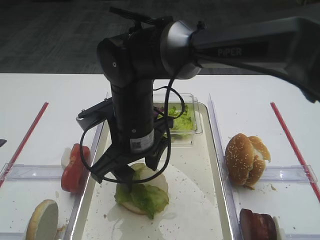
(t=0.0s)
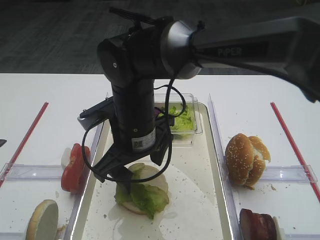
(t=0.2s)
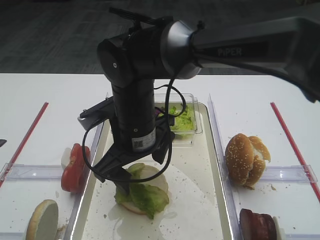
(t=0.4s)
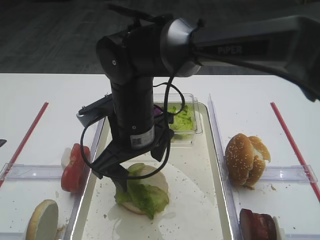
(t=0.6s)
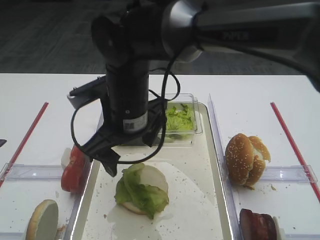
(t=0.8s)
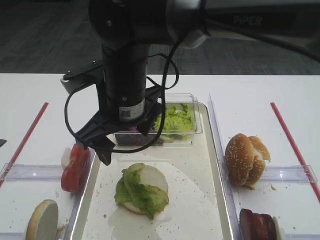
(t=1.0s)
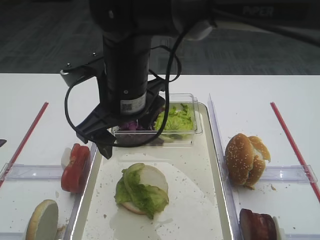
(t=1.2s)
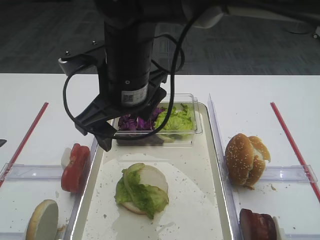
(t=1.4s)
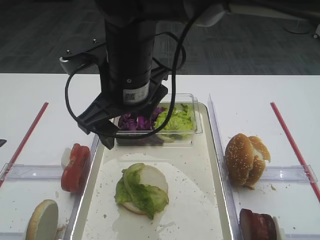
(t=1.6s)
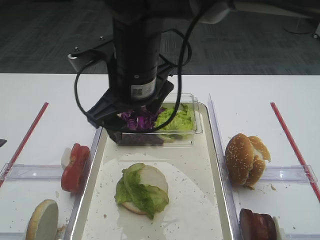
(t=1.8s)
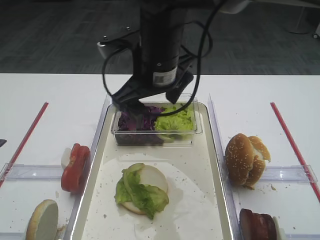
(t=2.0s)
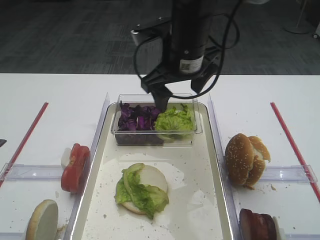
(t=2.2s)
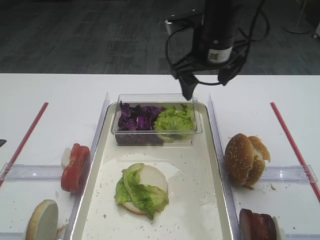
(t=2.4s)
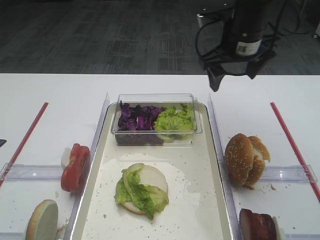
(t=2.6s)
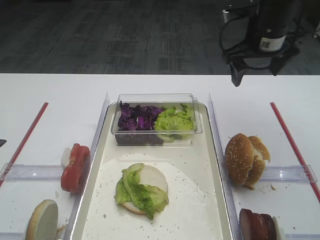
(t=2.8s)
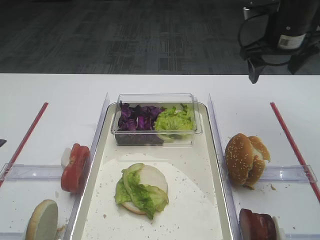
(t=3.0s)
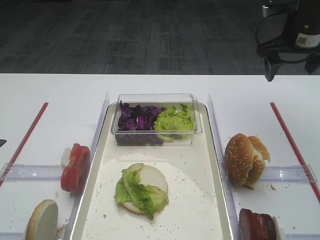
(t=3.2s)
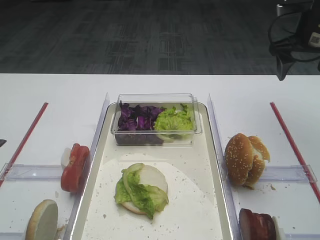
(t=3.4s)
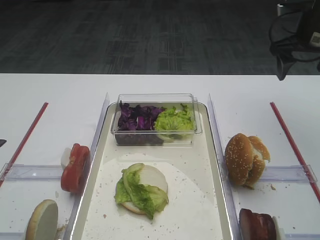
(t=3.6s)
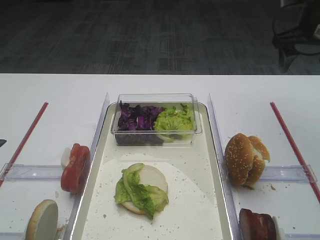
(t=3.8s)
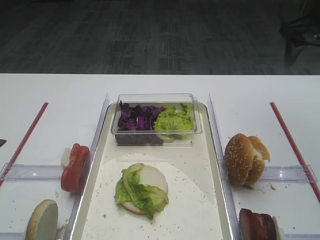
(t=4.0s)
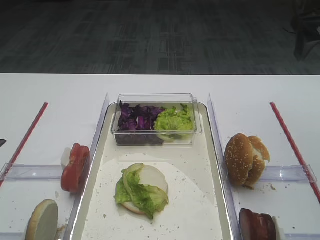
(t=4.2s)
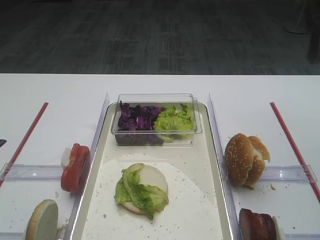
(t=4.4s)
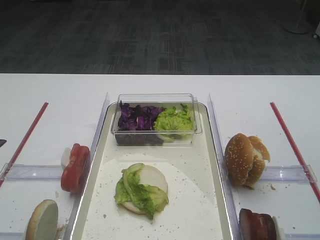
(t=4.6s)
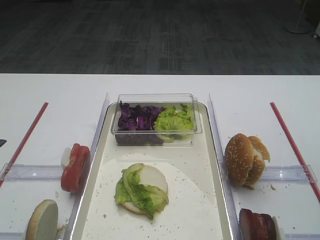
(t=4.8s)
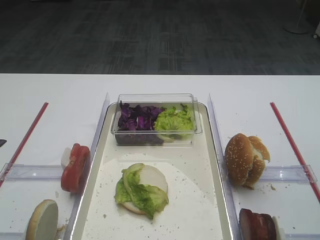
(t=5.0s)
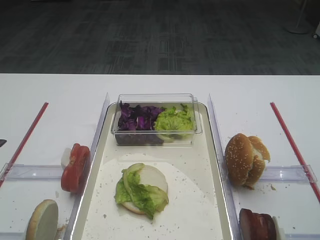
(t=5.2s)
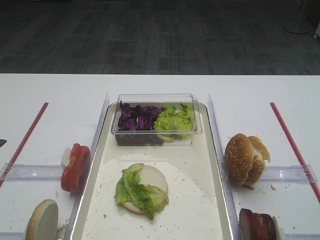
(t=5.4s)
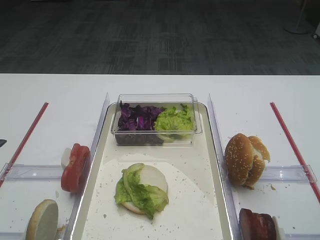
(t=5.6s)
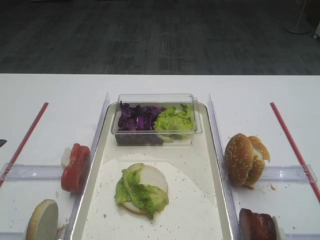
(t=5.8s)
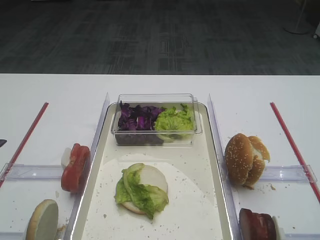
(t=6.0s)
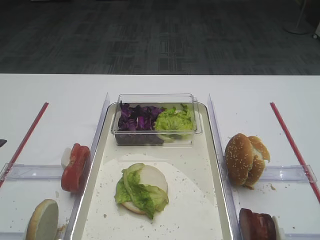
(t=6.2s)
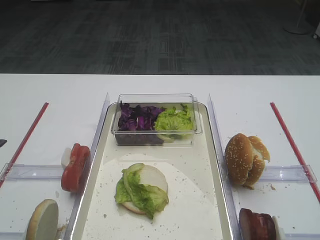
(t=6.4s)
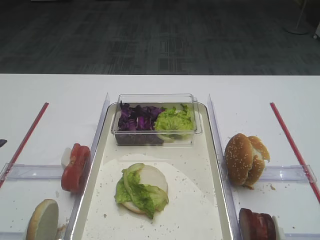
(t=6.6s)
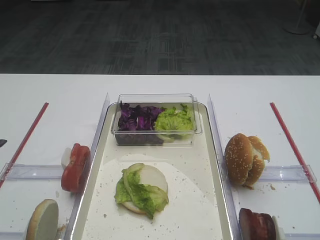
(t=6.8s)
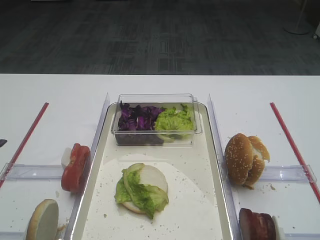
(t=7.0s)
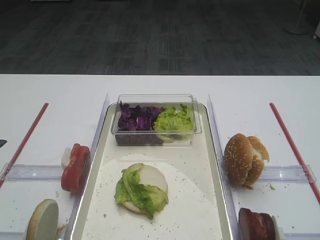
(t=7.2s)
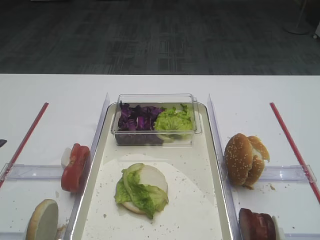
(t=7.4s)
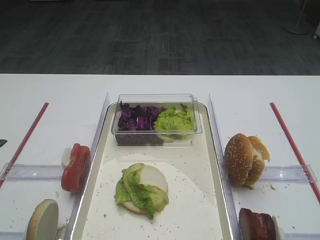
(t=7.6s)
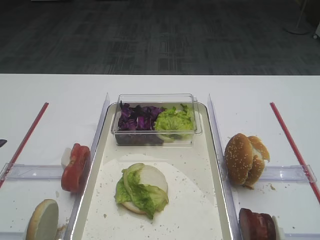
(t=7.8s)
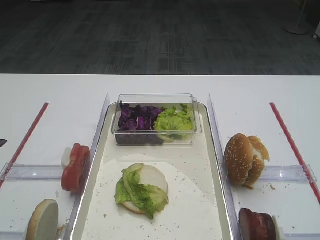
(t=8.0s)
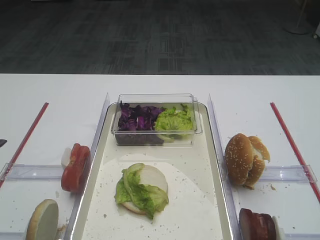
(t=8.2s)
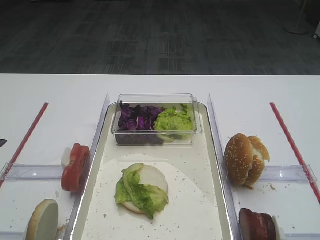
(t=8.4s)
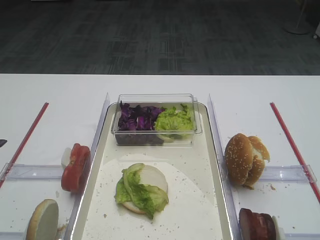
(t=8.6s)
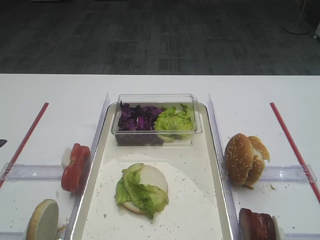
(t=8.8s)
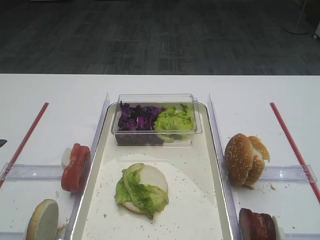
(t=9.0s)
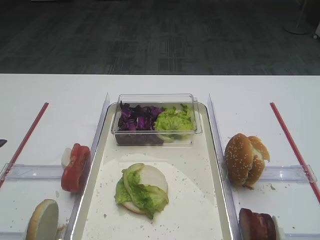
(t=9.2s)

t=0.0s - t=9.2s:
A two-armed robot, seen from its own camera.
t=0.0s - t=1.6s: The right gripper travels upward by some 10 cm.
t=1.6s - t=3.0s: The right gripper travels to the right and forward by about 30 cm.
t=3.0s - t=4.6s: The right gripper shifts approximately 15 cm backward, upward and to the right.
t=7.6s - t=9.2s: Neither gripper changes place.

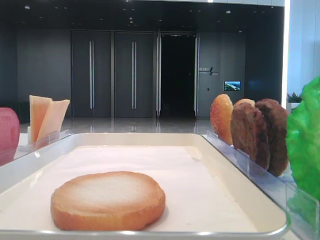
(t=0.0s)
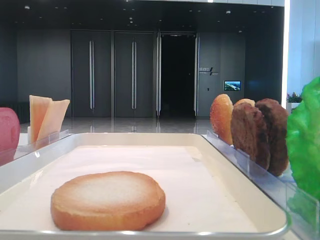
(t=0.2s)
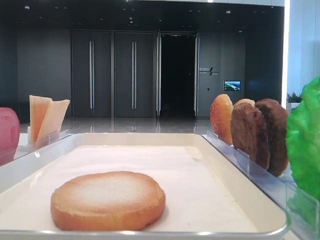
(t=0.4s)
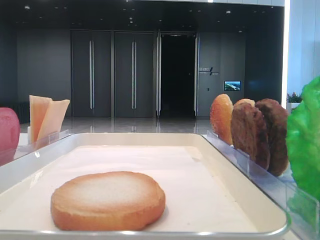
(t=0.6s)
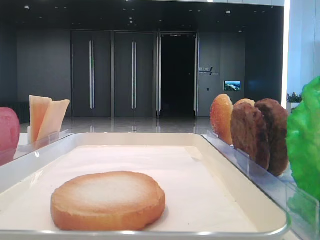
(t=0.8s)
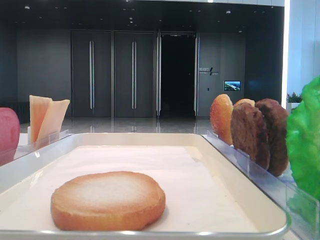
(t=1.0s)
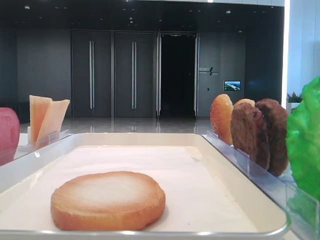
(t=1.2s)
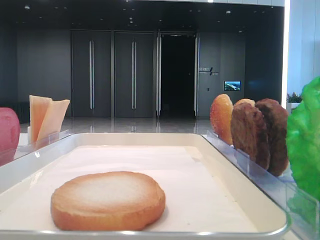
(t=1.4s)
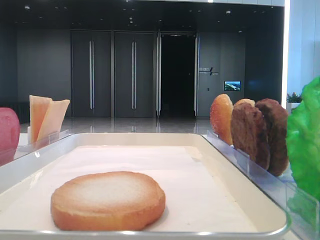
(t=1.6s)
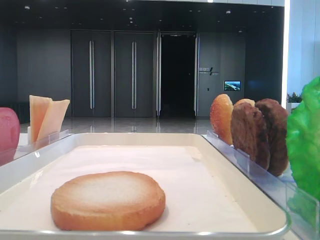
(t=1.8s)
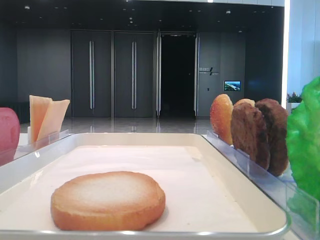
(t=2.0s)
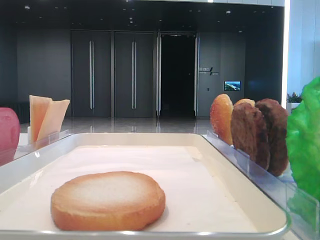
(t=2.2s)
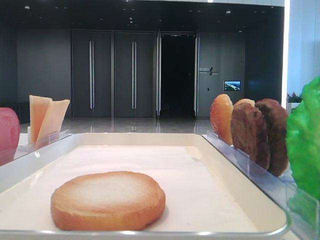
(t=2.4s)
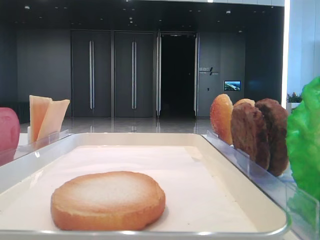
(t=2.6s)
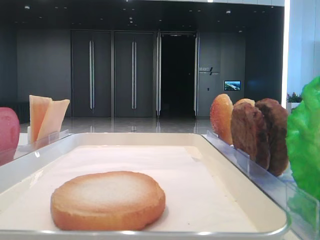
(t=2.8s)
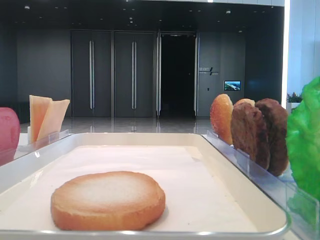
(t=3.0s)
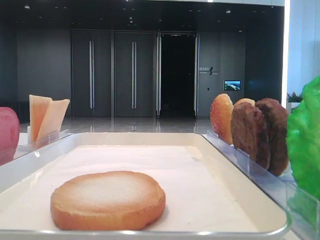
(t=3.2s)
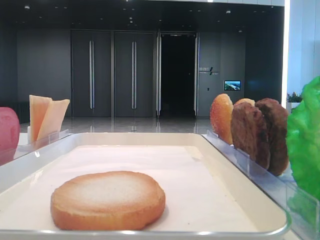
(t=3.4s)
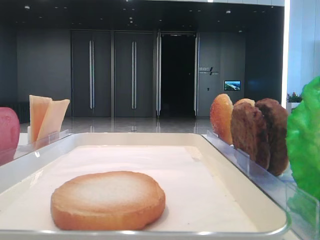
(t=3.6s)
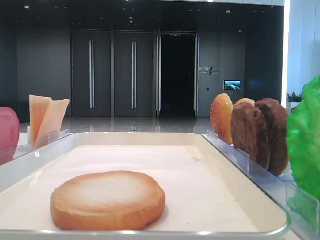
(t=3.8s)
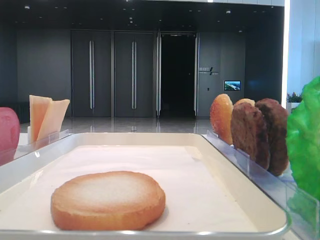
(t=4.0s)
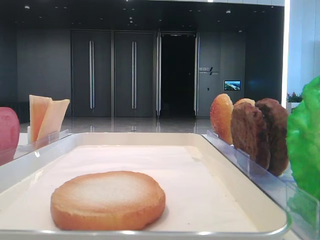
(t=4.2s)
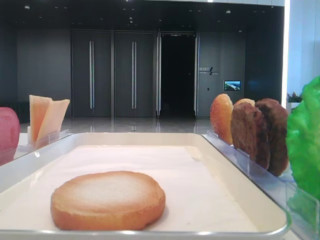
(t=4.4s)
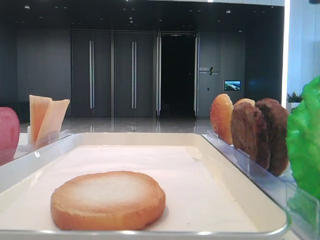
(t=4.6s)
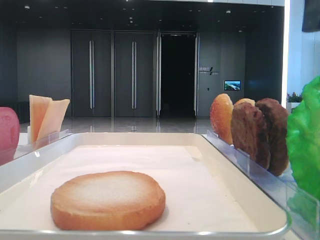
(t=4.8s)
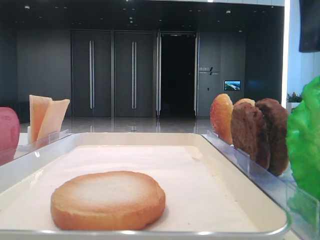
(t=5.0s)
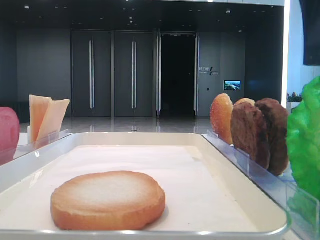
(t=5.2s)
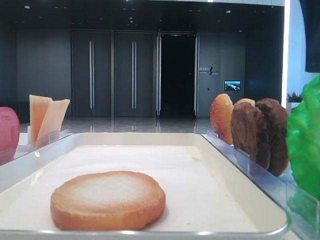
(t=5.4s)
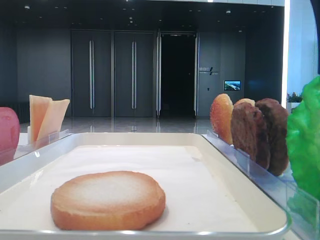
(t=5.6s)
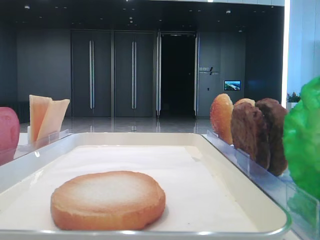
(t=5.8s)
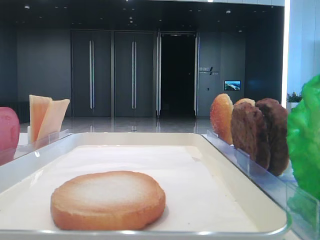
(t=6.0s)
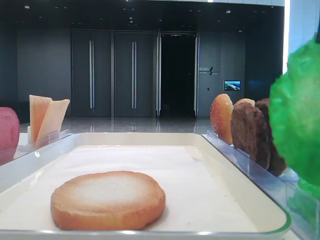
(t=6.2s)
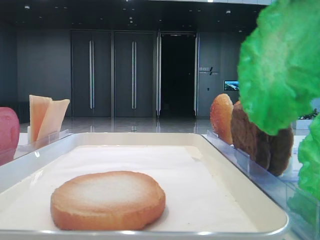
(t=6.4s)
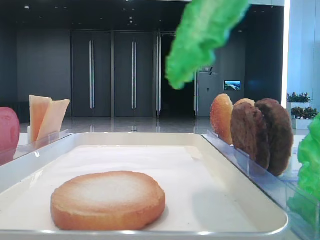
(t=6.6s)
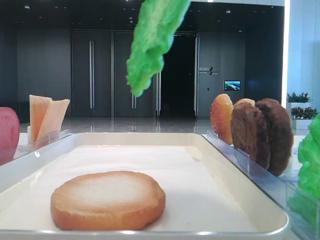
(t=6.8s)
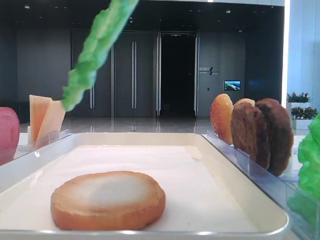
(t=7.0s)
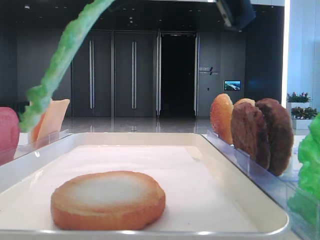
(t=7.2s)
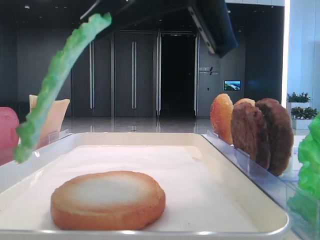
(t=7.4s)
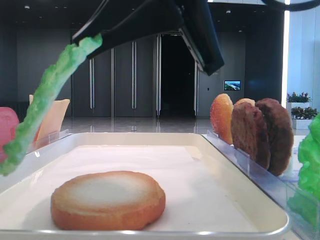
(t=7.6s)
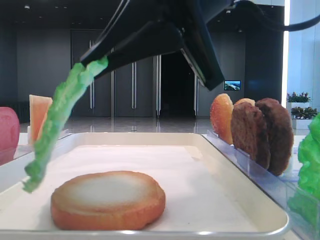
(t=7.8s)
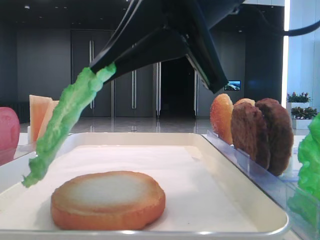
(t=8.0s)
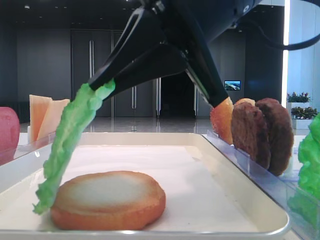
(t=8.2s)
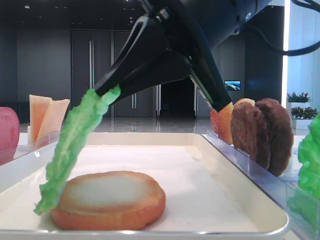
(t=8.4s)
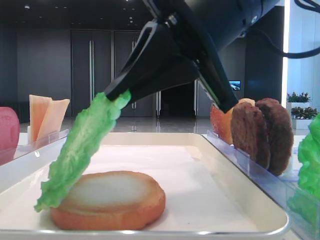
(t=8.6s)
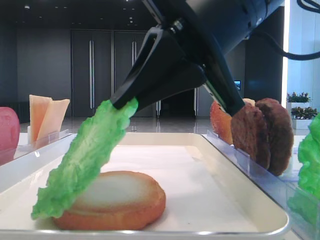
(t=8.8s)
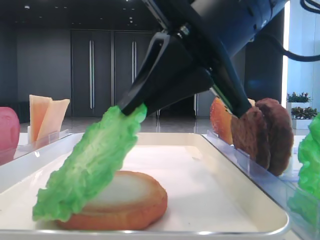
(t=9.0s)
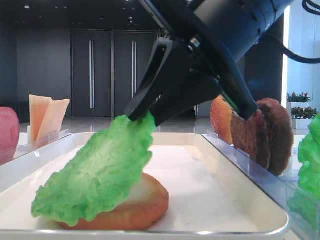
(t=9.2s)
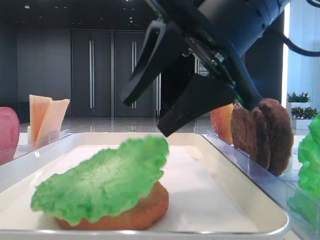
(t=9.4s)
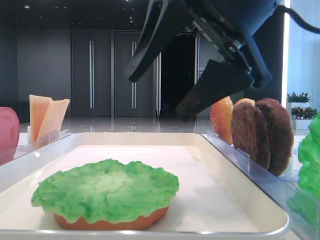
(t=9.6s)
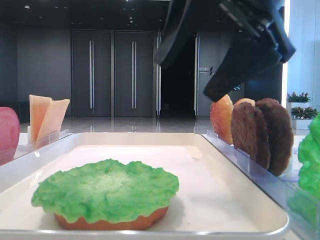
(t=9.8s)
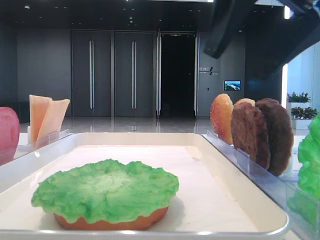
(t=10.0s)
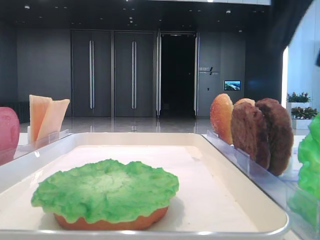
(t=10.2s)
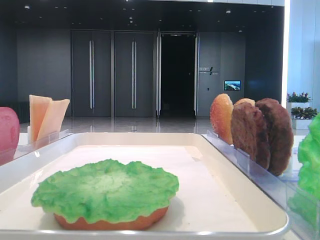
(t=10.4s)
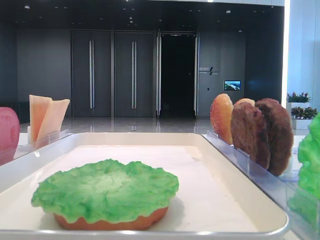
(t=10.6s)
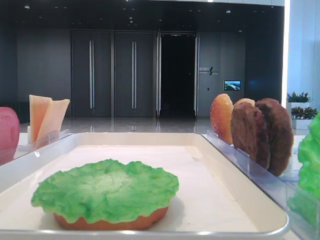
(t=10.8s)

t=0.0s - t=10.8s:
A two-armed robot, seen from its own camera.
Step, t=0.0s - t=5.8s: Grab the lettuce leaf with the right hand.
Step, t=6.0s - t=9.4s: Place the lettuce leaf on the bottom bread with the right hand.
t=4.6s - t=6.2s: The right gripper closes.
t=6.2s - t=7.8s: The right gripper goes roughly 15 cm to the left, downward and forward.
t=7.8s - t=9.2s: The right gripper opens its fingers.
t=9.2s - t=10.8s: The right gripper moves to the right and upward, approximately 25 cm, and opens its fingers.

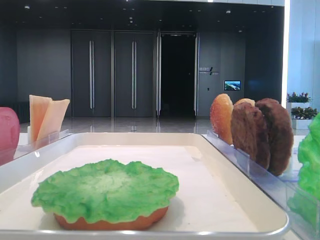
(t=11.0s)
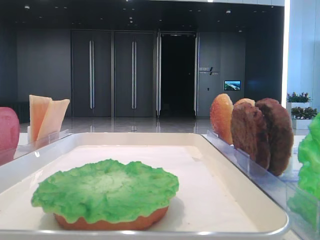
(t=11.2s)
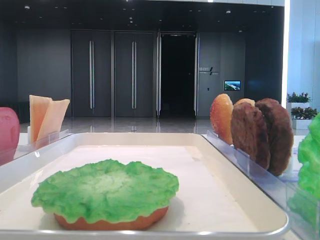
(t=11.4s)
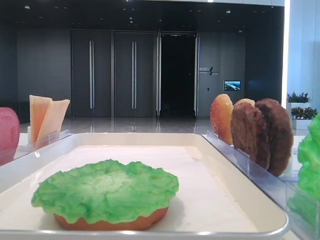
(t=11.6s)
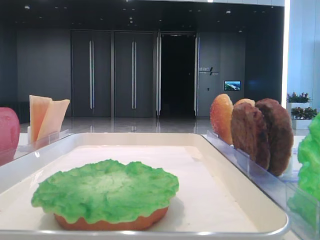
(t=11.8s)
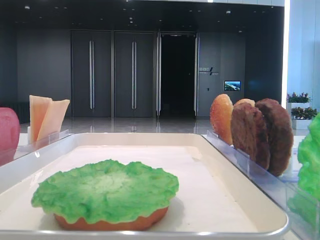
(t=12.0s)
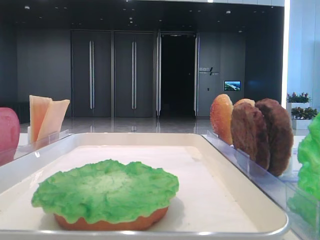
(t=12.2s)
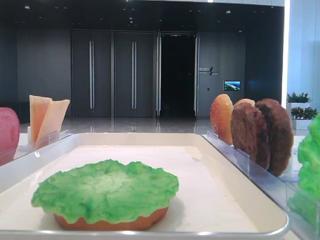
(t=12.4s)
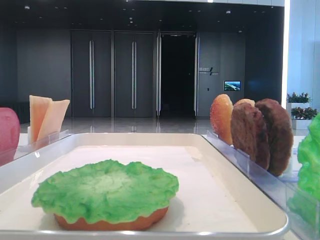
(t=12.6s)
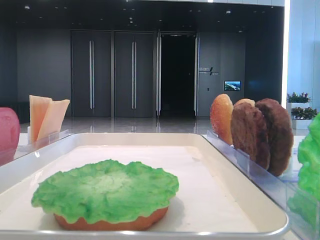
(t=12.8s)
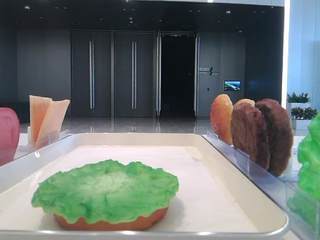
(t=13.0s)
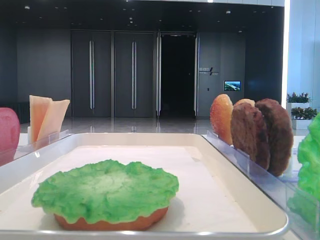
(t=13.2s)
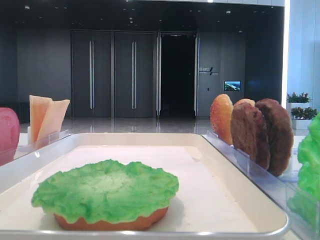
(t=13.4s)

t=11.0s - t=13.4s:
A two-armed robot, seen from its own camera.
t=12.2s - t=13.4s: The two grippers keep their place.
